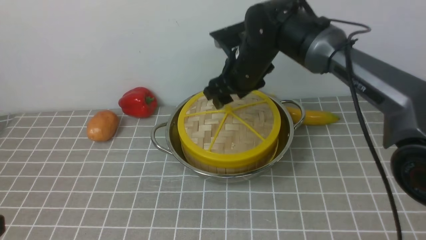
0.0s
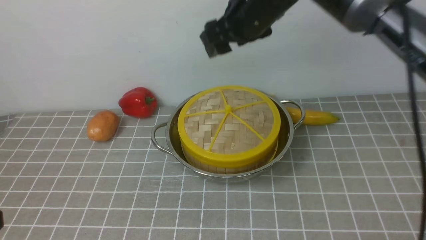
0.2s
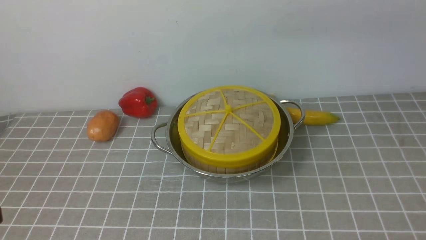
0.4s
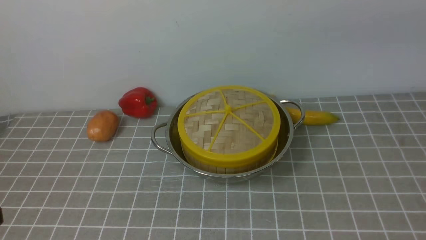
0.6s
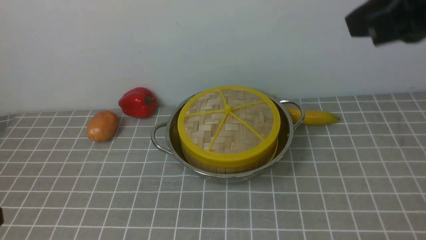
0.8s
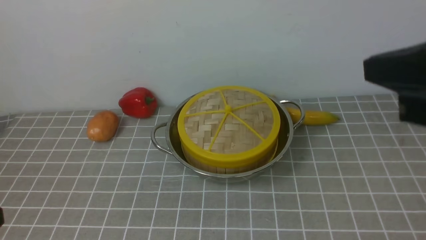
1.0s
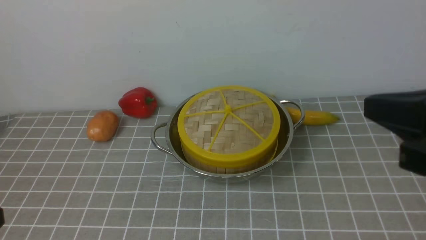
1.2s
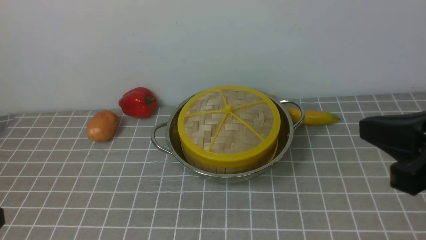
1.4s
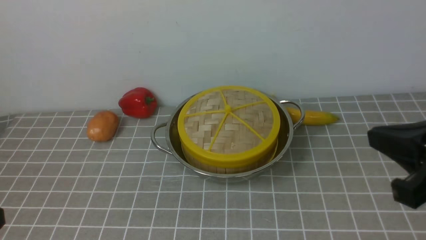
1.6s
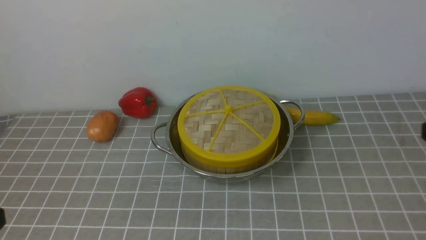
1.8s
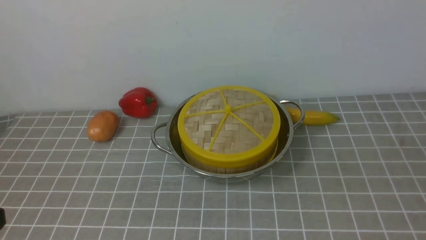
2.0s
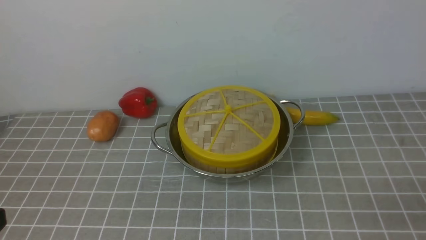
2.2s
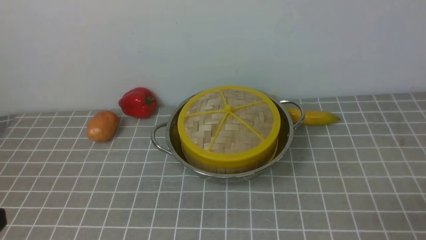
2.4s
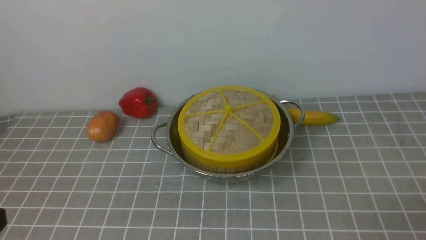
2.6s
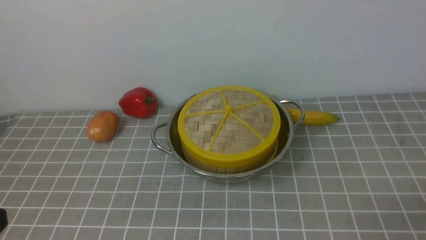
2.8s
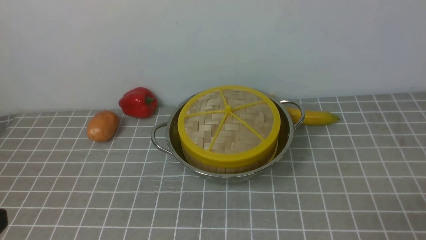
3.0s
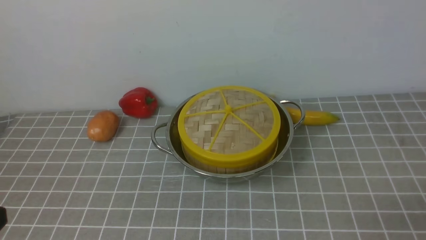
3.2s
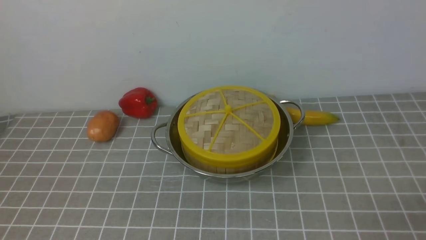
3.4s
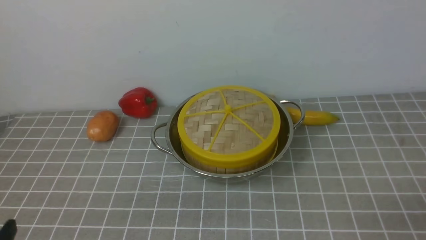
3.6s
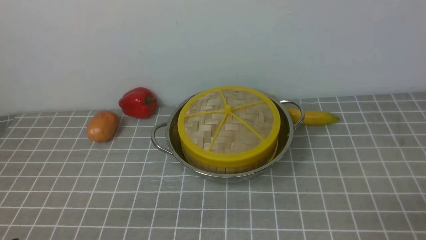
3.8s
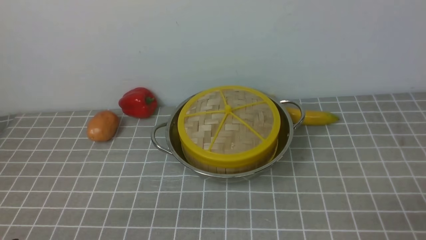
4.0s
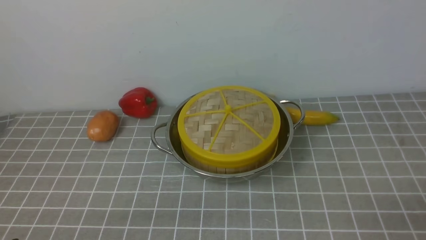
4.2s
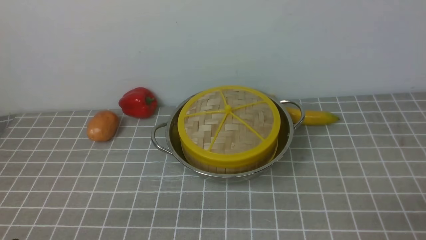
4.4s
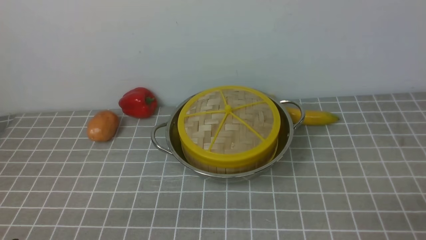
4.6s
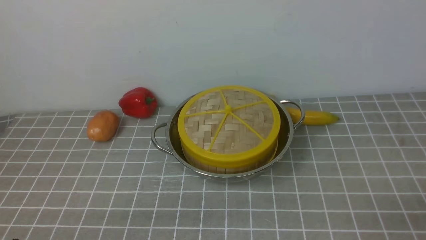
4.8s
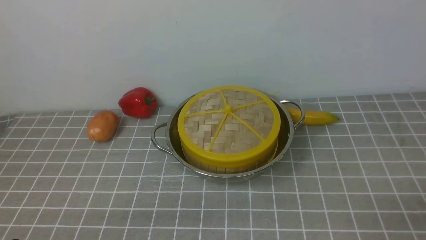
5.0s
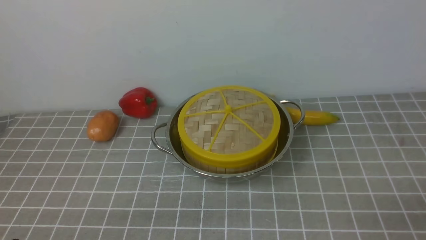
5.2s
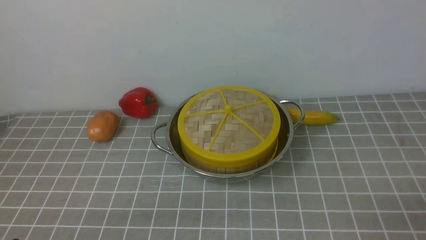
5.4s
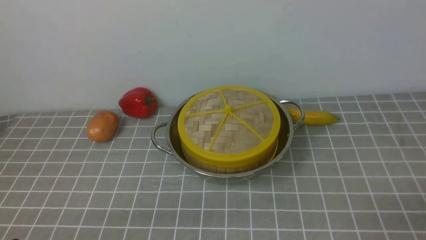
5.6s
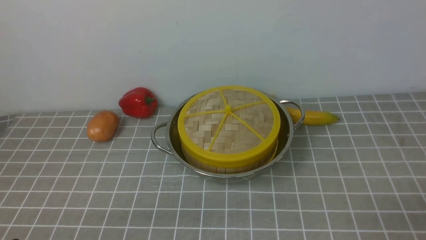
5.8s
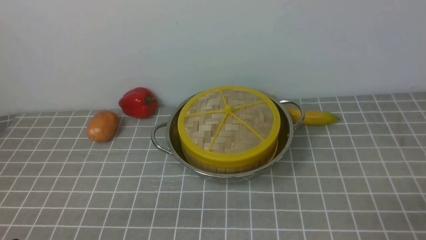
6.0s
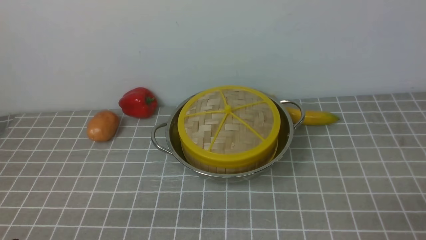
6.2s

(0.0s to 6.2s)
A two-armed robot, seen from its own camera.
Task of the whole recording: place the steamer in the pot on the grey tablecloth, and put the lid on the steamer.
0.0s - 1.6s: The right gripper shifts approximately 35 cm backward and to the right, and closes its fingers.
1.6s - 3.2s: The right gripper goes some 20 cm downward, to the right and backward, and opens its fingers.
4.6s - 6.2s: Both grippers stay about where they are.

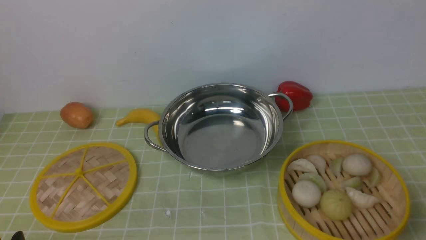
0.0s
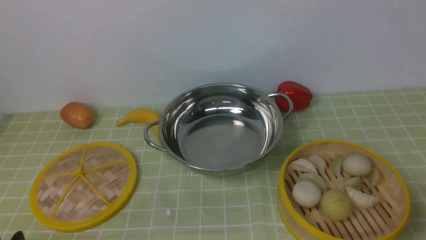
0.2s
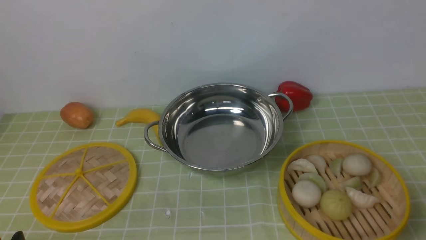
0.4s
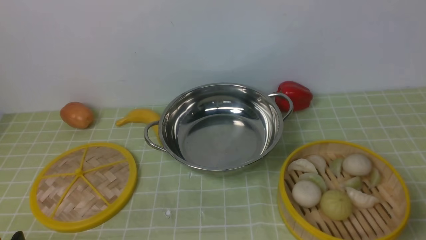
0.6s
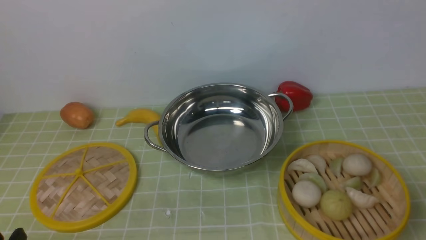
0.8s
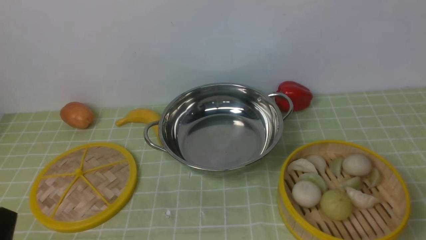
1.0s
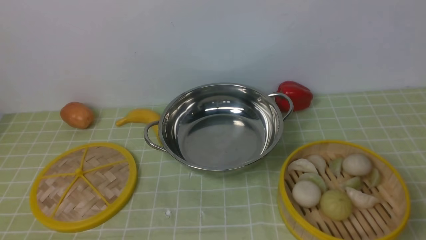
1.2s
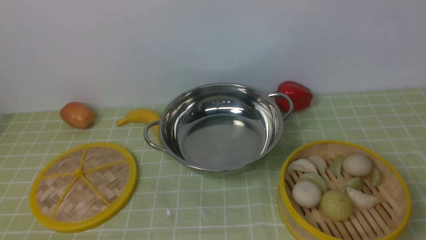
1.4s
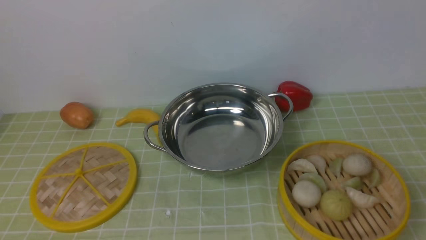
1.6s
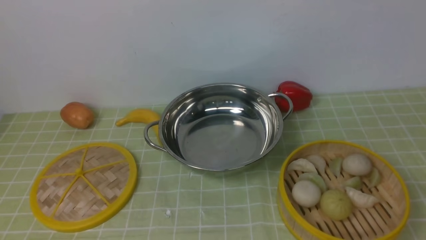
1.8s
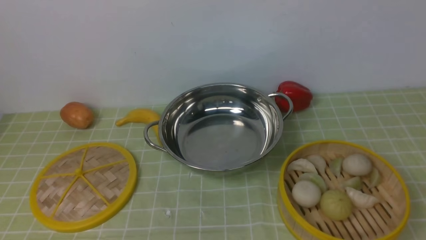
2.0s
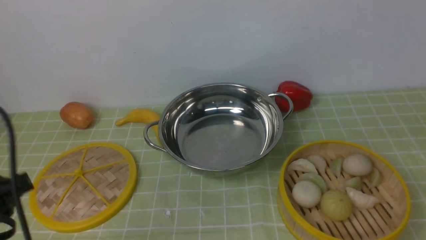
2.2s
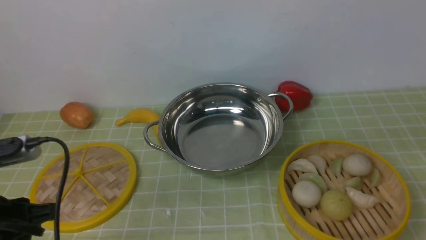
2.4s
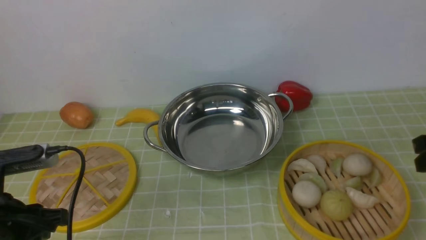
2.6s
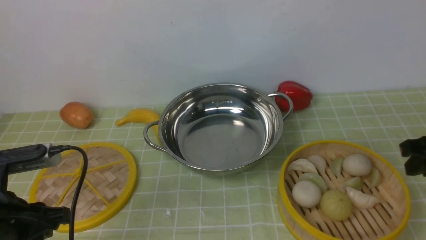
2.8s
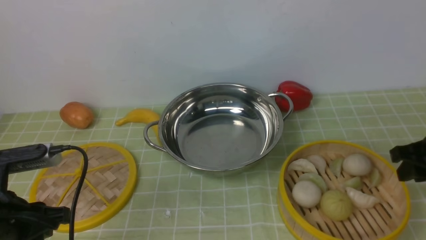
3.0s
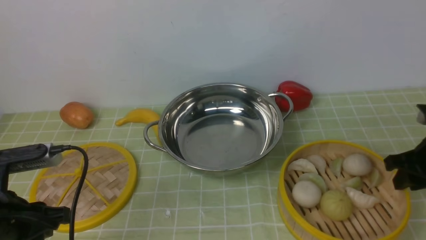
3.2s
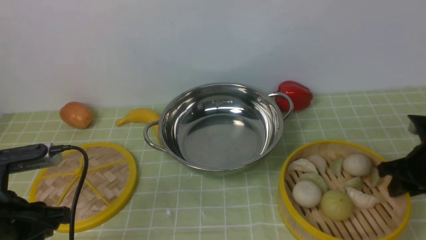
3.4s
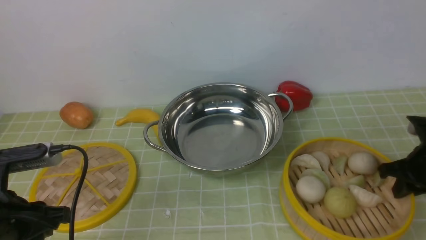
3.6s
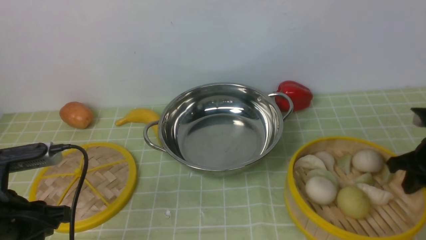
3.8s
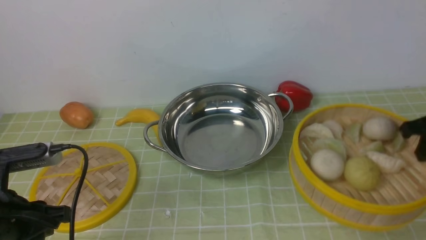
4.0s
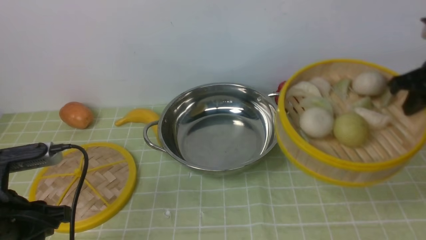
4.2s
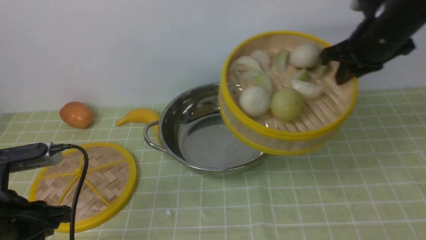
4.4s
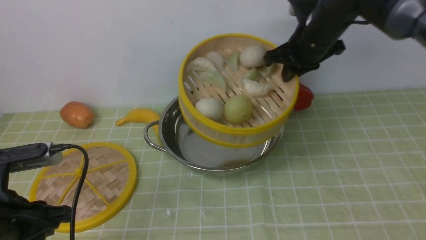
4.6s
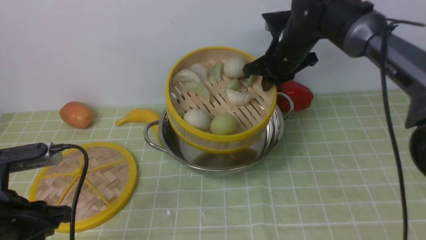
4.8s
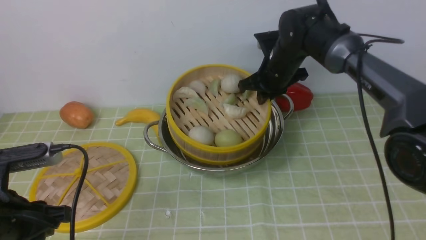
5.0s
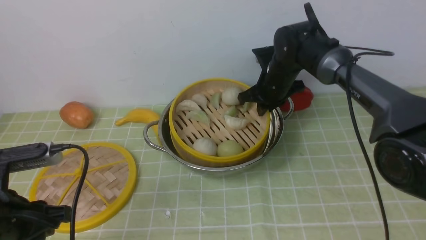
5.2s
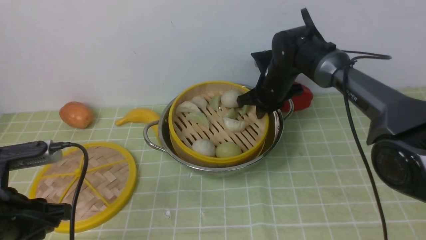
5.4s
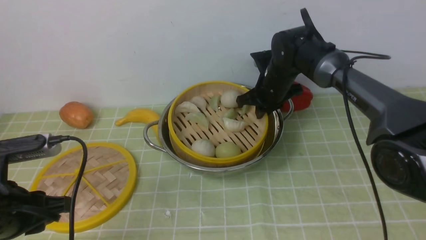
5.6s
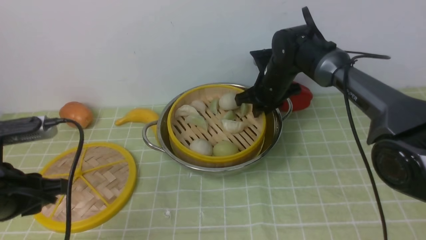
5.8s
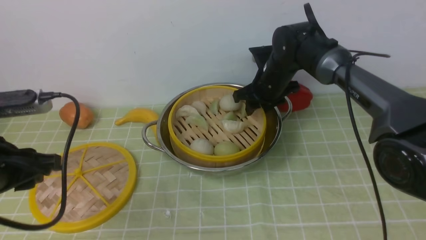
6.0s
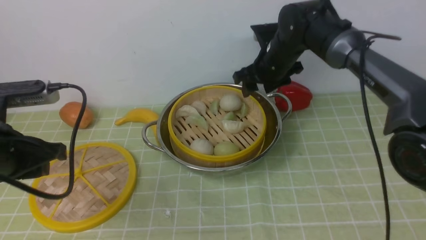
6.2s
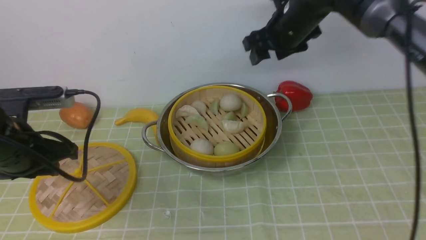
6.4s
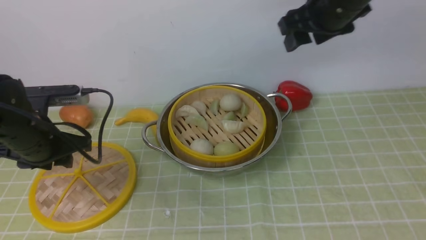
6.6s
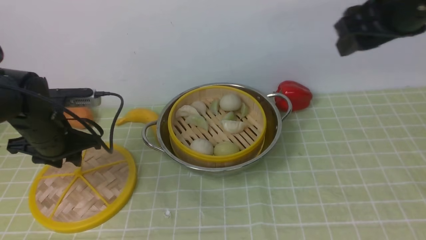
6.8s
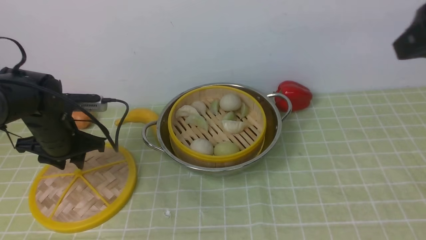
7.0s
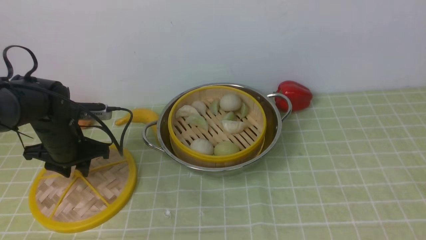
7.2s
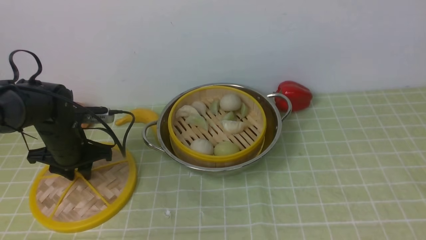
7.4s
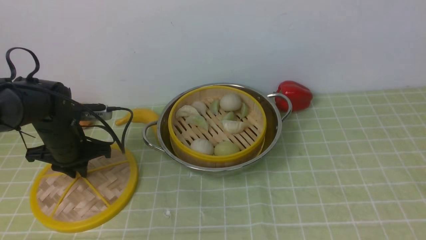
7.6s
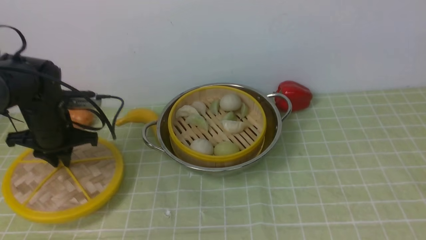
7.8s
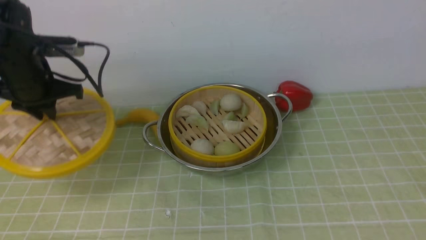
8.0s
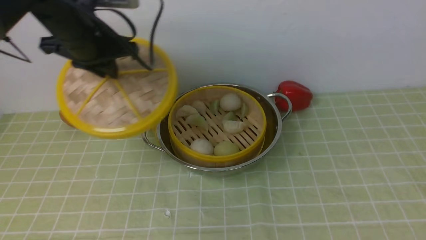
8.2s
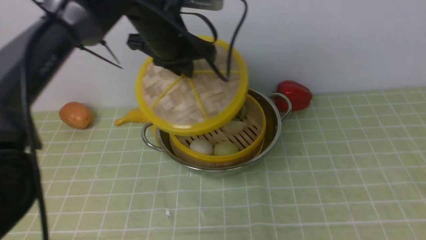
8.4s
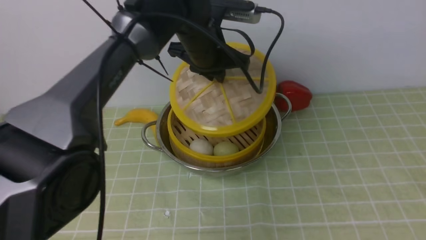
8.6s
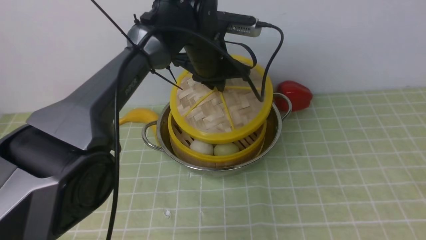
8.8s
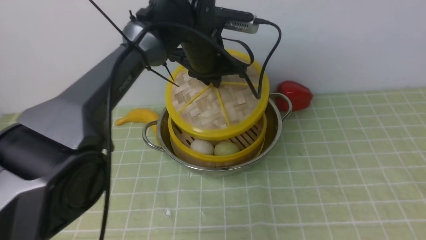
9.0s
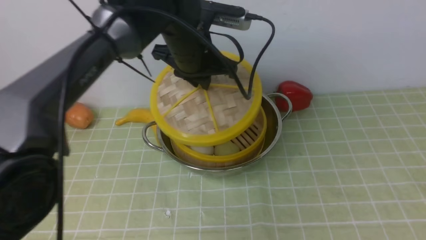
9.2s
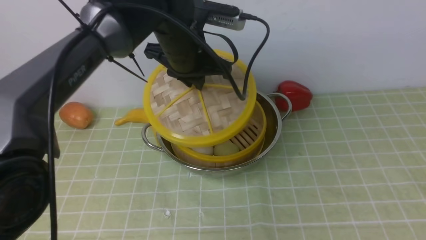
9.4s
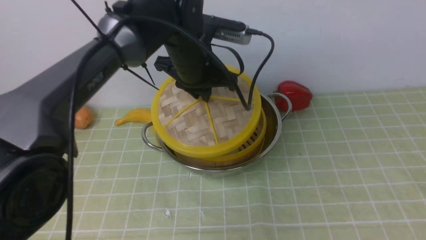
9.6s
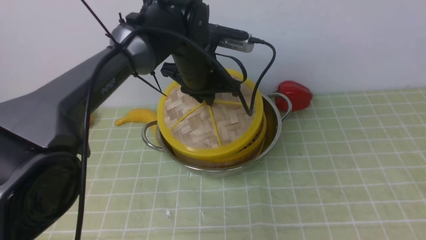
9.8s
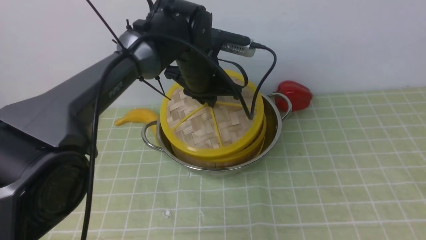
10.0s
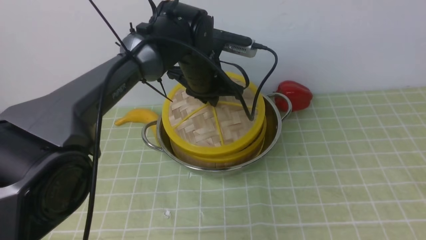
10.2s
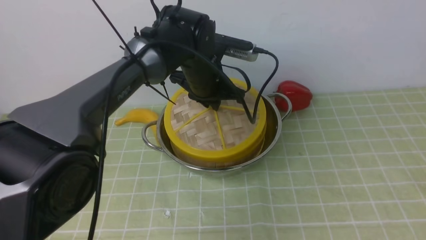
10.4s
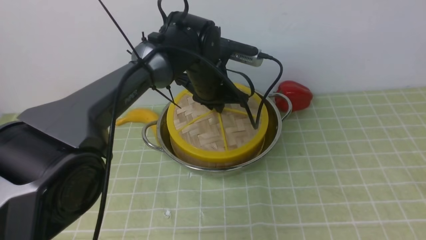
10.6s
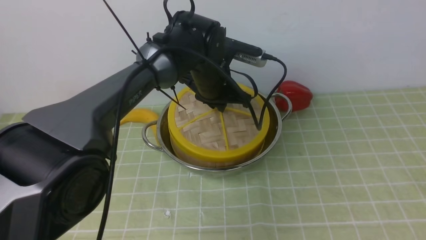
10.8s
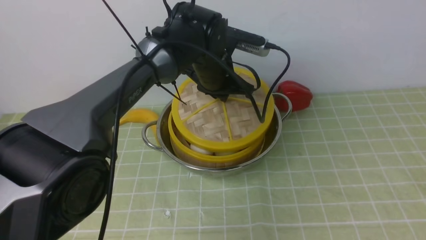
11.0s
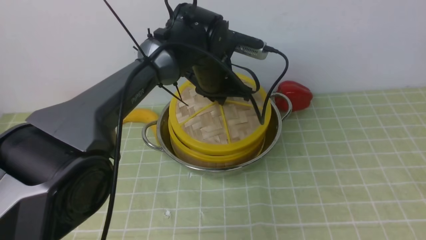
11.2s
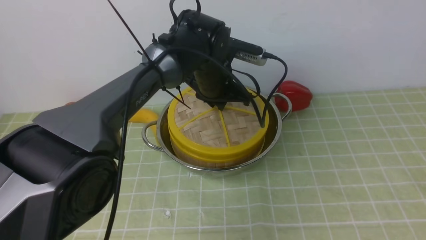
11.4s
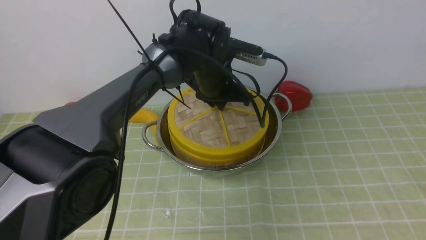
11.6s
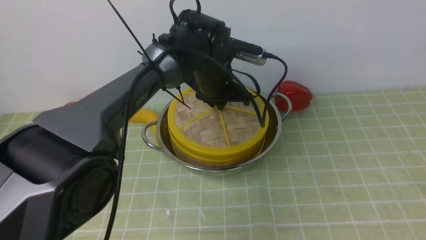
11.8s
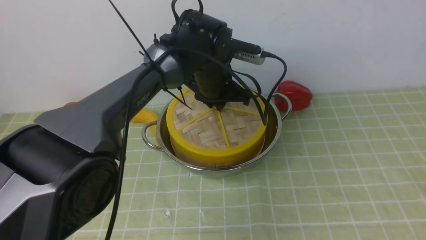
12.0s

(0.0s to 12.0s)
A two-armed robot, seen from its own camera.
Task of the whole recording: place the steamer in the pot on the green tablecloth, and put the lid on the steamer.
Step, 0.0s - 4.0s: use the right arm to lift the steamer closest to it.
Step, 4.2s - 6.4s: use the right arm to put the steamer into the iron steamer pot in the middle.
Step, 6.8s - 8.0s: use the left arm to lift the lid of the steamer.
1.6s - 3.0s: The left gripper goes roughly 15 cm forward and downward; the right gripper is displaced forward and downward by roughly 30 cm.
3.0s - 4.4s: The right gripper shifts about 20 cm forward, upward and to the left, and closes up.
4.4s - 6.0s: The right gripper travels to the left, downward and forward by some 20 cm, and opens its fingers. Meanwhile the left gripper changes place by approximately 5 cm.
6.0s - 7.6s: The left gripper goes some 20 cm forward and downward, while the right gripper is displaced backward, upward and to the right by about 50 cm.
7.6s - 9.0s: The left gripper moves to the right and upward, some 25 cm.
9.0s - 10.4s: The left gripper travels downward by some 5 cm.
10.4s - 12.0s: There are only small adjustments of the grippers.
